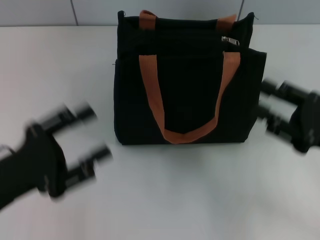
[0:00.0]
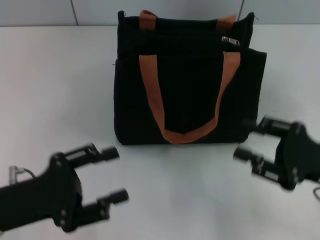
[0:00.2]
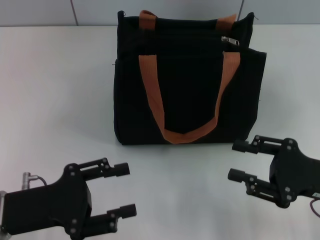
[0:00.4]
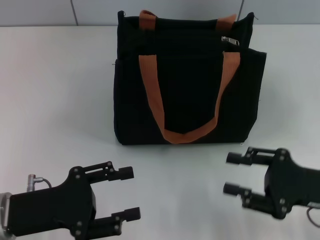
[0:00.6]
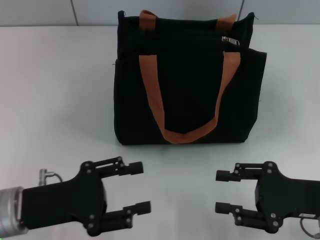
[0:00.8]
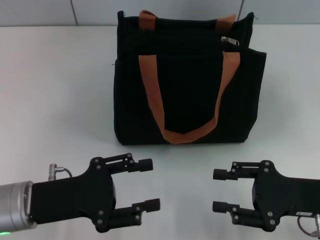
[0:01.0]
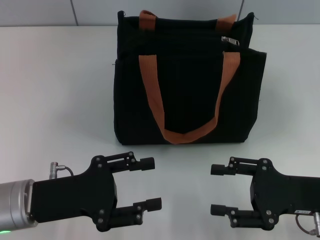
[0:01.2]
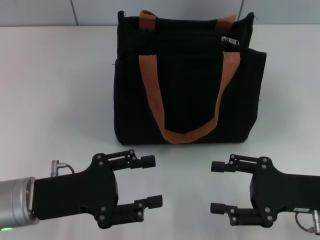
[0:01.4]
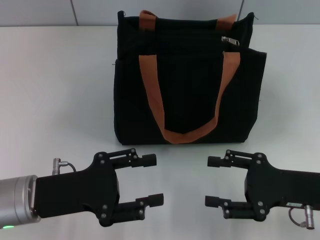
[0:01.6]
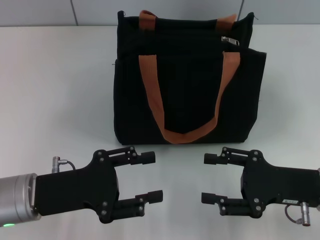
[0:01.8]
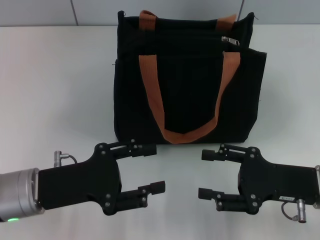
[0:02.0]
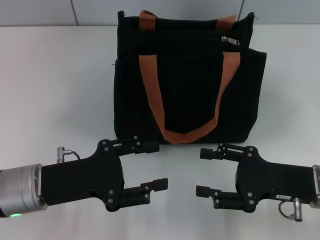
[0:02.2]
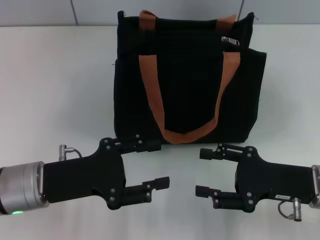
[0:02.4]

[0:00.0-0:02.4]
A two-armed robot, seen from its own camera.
1.2 to 2.4 s: The grippers move only a little.

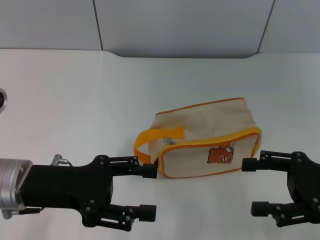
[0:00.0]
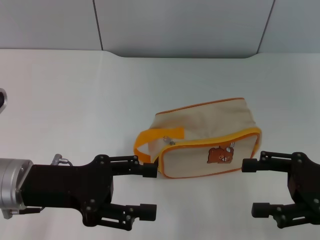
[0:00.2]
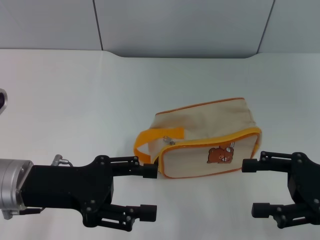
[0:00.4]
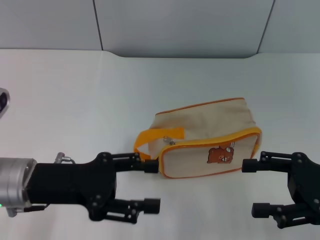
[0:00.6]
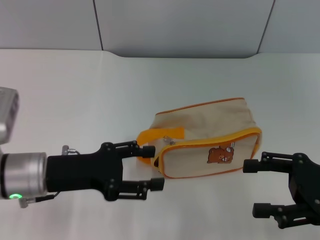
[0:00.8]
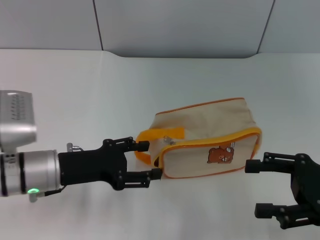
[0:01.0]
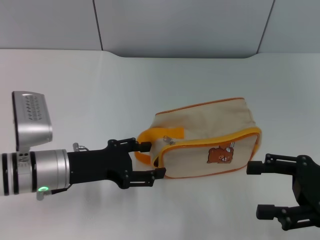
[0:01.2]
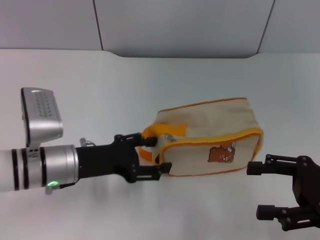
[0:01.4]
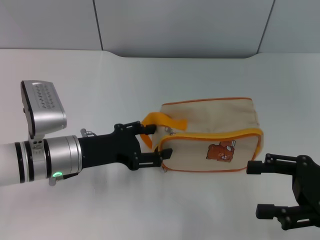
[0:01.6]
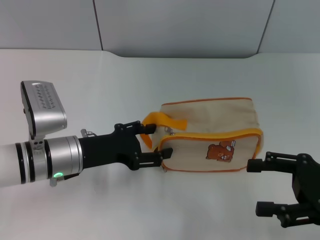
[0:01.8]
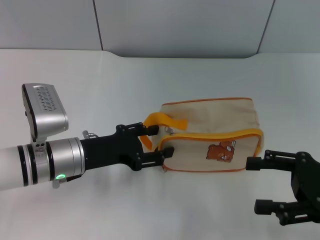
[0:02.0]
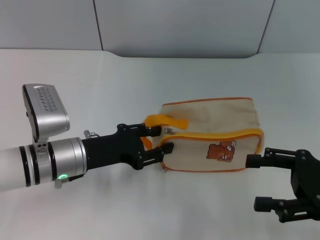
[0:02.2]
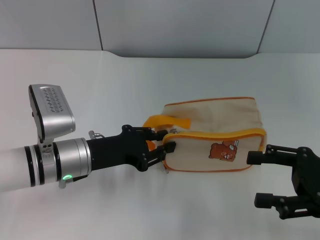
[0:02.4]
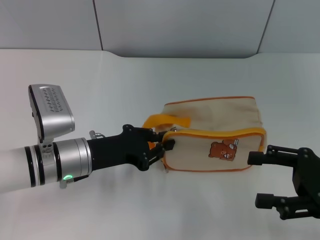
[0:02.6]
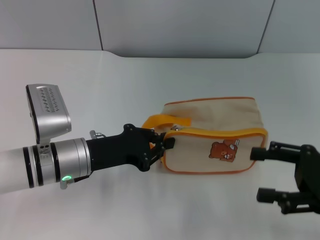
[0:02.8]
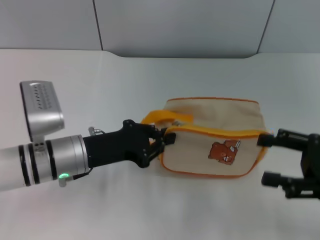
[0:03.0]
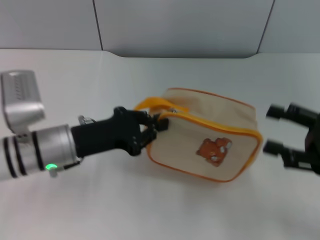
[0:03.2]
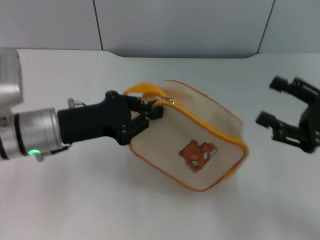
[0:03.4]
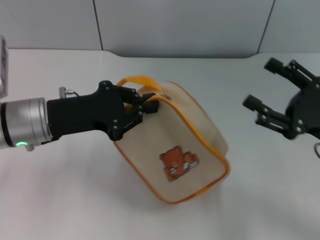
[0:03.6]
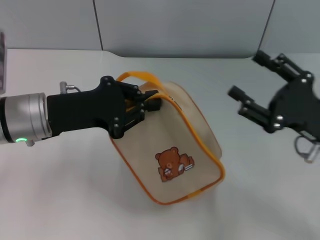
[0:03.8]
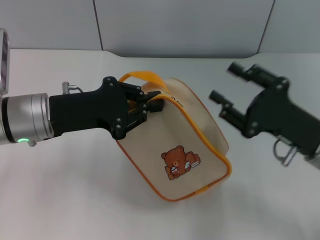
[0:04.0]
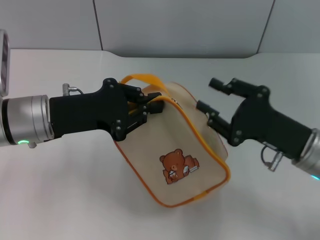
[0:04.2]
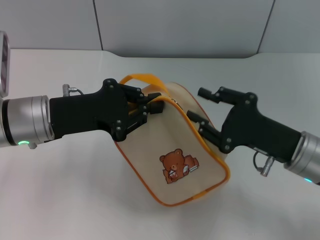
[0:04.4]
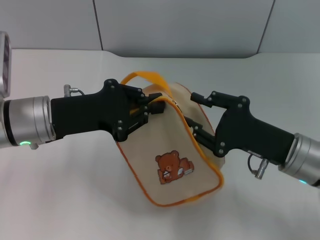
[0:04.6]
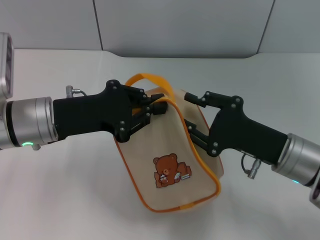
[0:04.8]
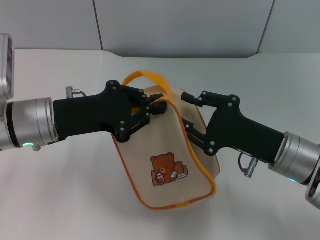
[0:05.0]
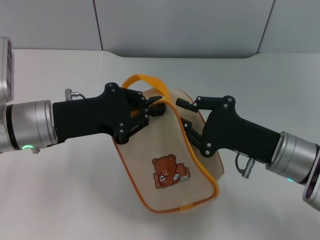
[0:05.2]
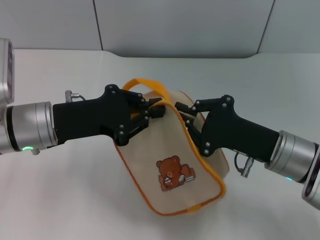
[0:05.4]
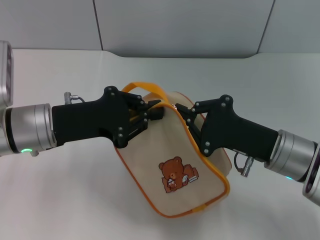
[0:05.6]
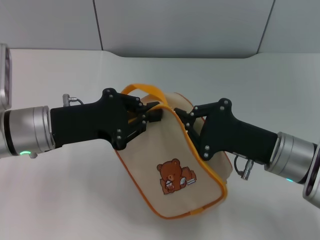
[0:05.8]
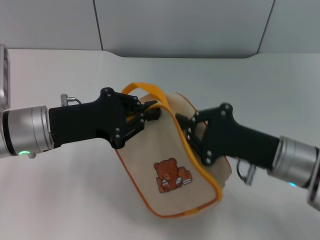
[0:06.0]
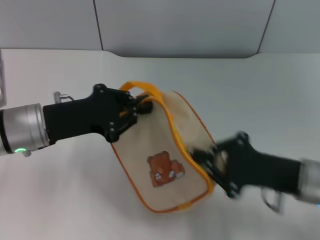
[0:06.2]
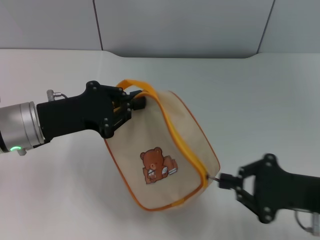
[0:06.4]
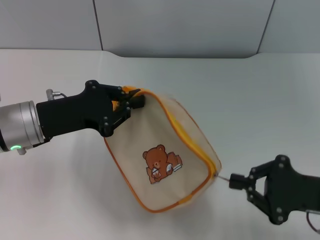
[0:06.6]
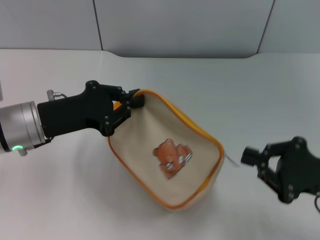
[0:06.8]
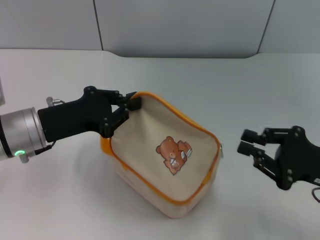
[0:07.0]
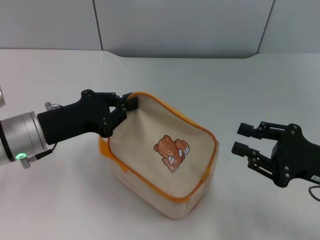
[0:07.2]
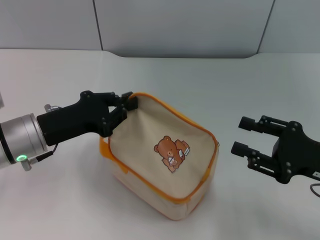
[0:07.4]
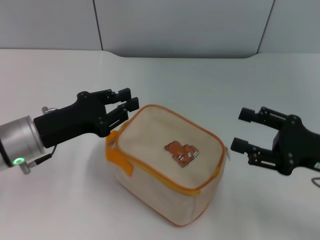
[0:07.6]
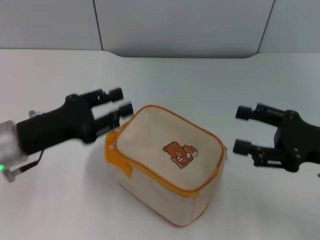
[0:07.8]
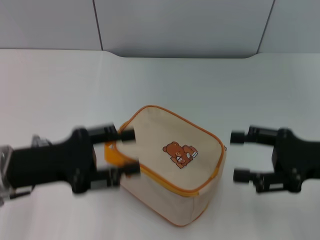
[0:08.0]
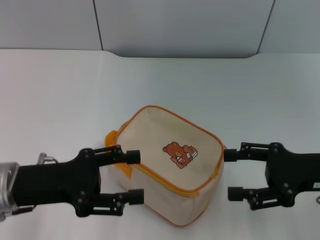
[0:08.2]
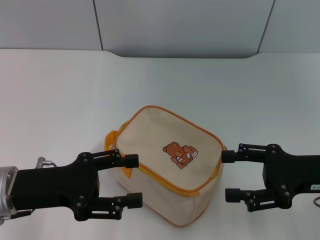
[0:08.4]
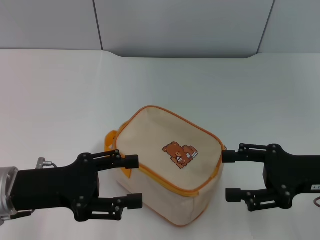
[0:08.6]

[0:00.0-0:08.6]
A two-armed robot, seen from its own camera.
Step, 0.0 to 3.6 s: Pick up the bag with left gripper.
Step, 4.0 to 6.8 s: Unzip the zipper of bag with right gripper.
Step, 7.2 to 7.8 s: Place the bag on the table with left gripper.
0.0 to 1.4 s: The left gripper heads downward, covering about 5 cm.
1.4 to 2.8 s: The left gripper closes its fingers.
2.8 to 4.4 s: The left gripper shifts roughly 10 cm upward. Meanwhile the right gripper goes approximately 10 cm to the left, and closes up.
4.4 to 5.8 s: The right gripper closes its fingers.
5.8 to 7.2 s: The right gripper goes approximately 10 cm to the right.
7.2 to 8.6 s: The left gripper goes some 5 cm backward, and opens. The right gripper opens its fingers.

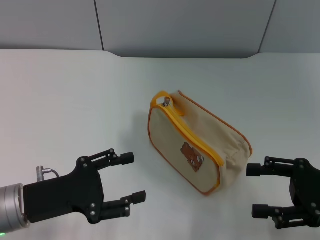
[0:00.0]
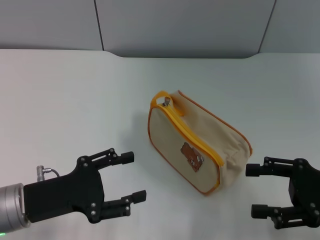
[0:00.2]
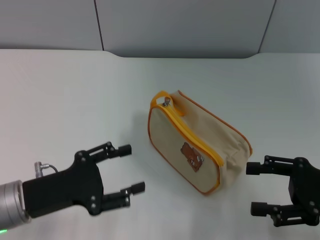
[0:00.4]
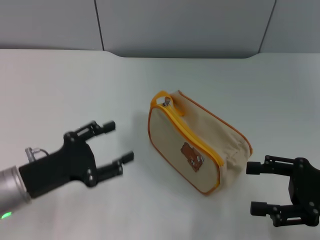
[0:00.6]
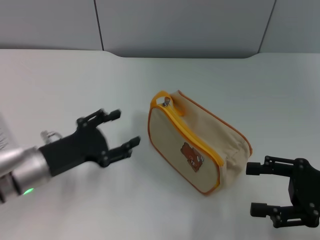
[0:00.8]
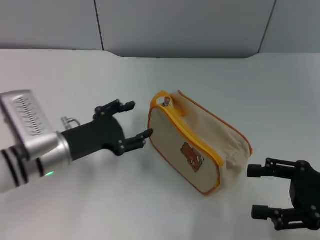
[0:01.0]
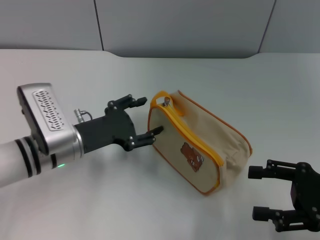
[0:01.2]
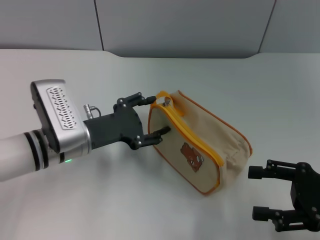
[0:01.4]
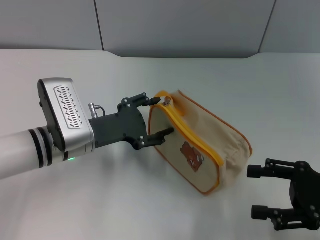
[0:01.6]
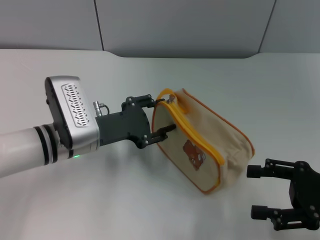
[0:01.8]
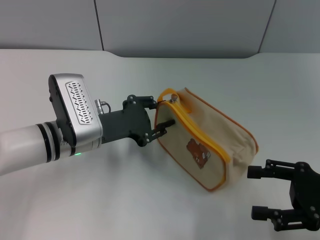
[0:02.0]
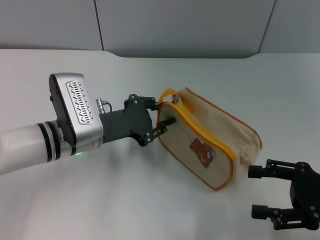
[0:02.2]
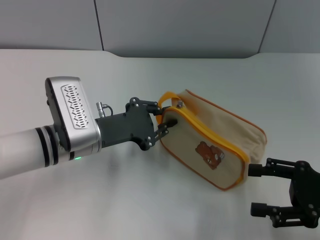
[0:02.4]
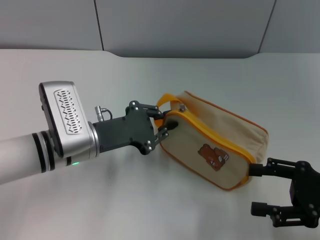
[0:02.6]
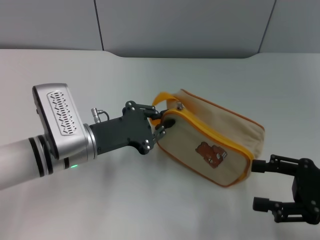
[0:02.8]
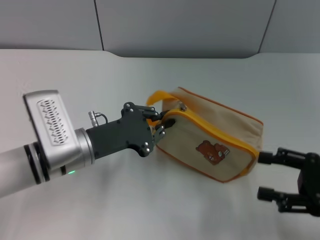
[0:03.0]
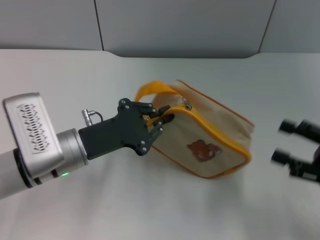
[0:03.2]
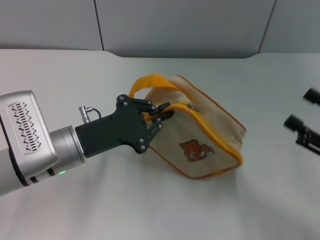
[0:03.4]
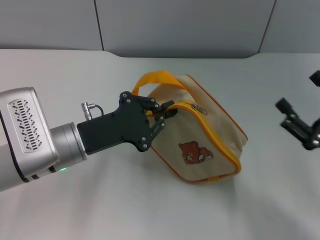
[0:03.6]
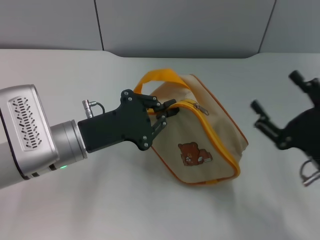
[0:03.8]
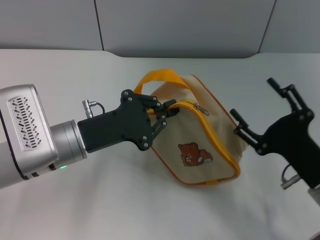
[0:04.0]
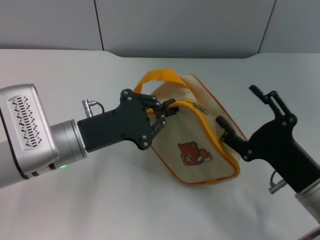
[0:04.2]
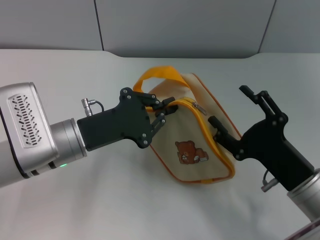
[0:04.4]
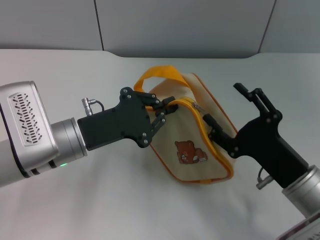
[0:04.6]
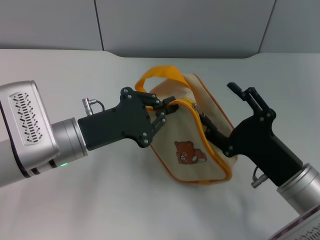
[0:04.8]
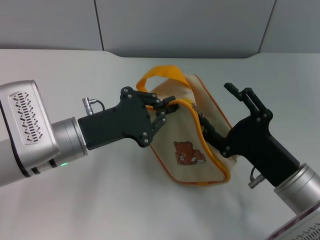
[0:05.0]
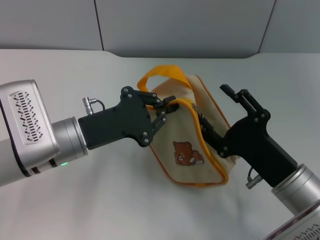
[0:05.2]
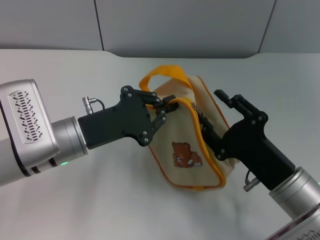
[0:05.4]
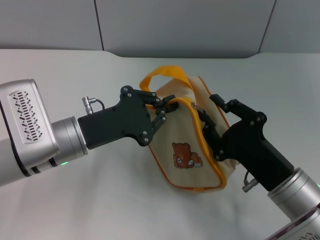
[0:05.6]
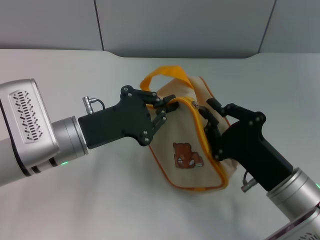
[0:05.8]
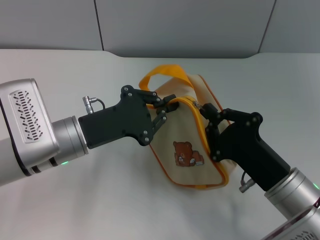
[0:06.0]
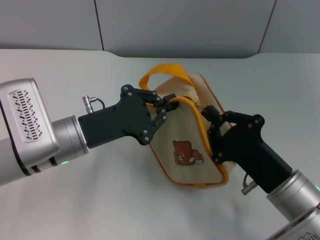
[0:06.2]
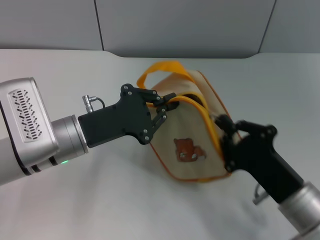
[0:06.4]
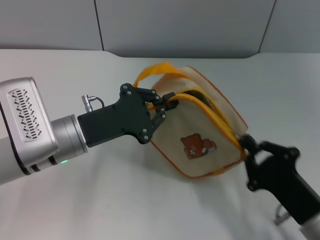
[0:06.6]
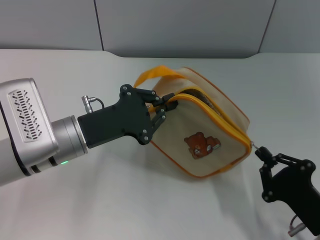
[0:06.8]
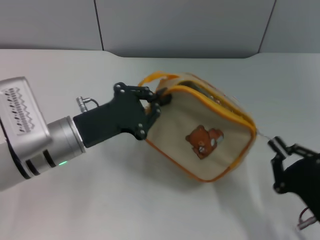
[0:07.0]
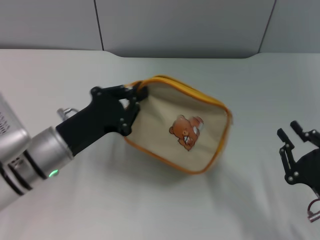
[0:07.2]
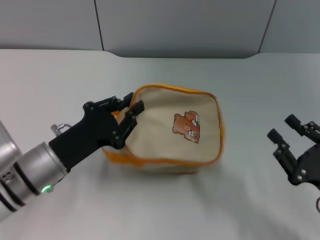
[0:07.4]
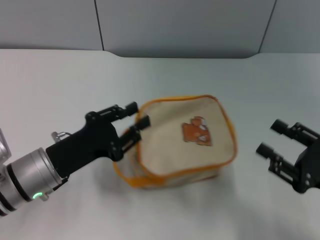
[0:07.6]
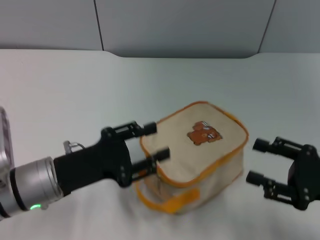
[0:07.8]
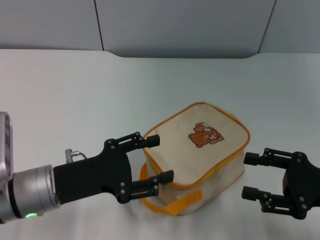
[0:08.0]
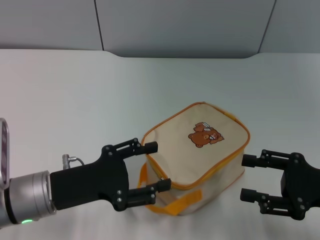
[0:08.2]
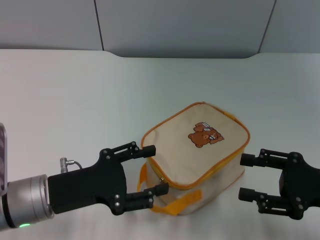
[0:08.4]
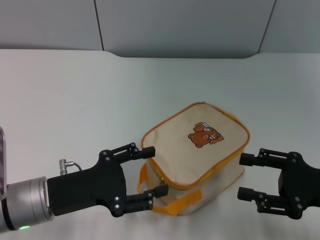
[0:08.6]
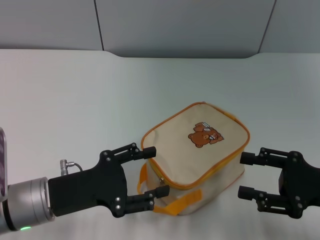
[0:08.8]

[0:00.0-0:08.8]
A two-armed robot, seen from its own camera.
Step, 0.0 to 3.2 s: Pick up the bag with left gripper.
Step, 3.4 to 7.0 s: Unzip the zipper of bag with right gripper.
Step, 7.2 to 7.6 s: Place the bag on the table with left gripper.
0.0 to 1.4 s: The left gripper is displaced forward and to the right by some 10 cm.
1.4 to 3.0 s: The left gripper closes up.
3.0 to 4.4 s: The right gripper heads to the left, covering some 10 cm.
4.4 to 5.8 s: The right gripper closes.
5.8 to 7.4 s: The right gripper travels to the right by about 10 cm. The left gripper changes place by some 5 cm.
7.4 to 8.8 s: The left gripper opens. The right gripper changes place by about 5 cm, and opens its fingers.

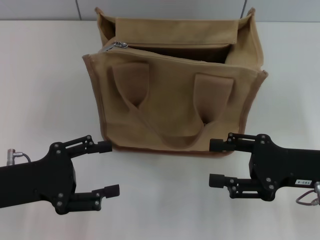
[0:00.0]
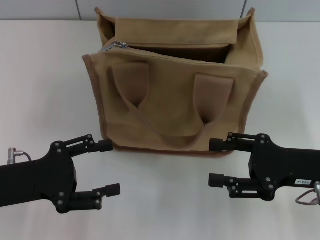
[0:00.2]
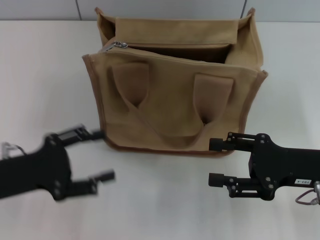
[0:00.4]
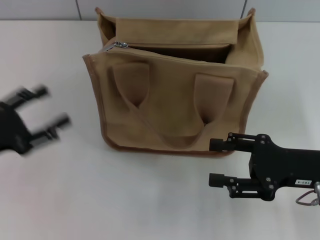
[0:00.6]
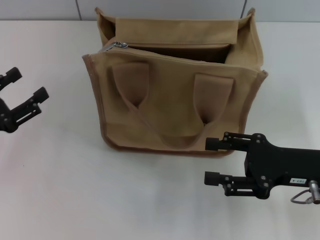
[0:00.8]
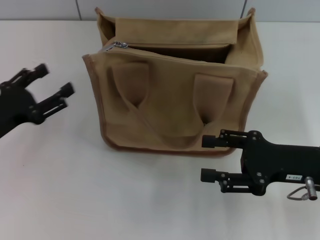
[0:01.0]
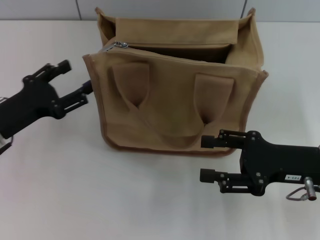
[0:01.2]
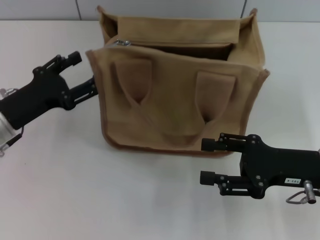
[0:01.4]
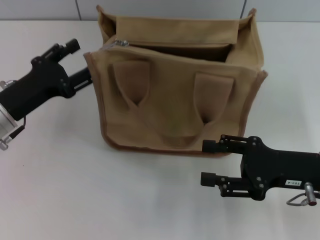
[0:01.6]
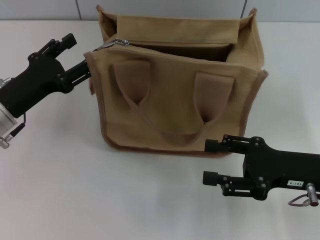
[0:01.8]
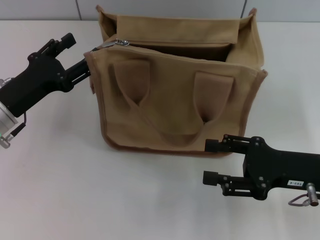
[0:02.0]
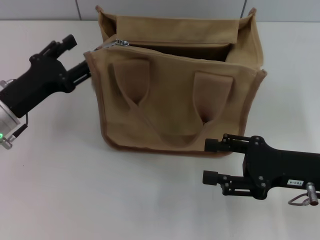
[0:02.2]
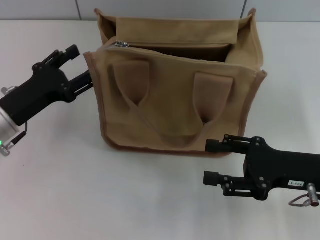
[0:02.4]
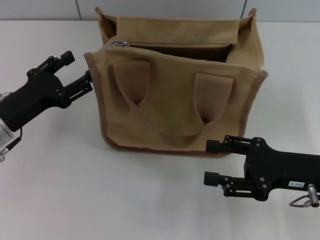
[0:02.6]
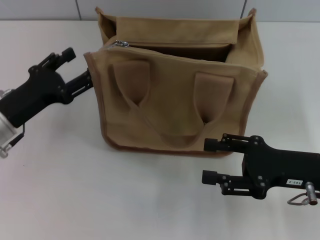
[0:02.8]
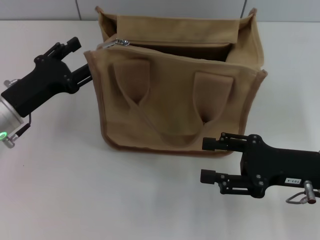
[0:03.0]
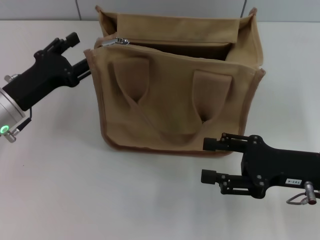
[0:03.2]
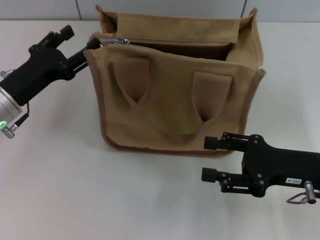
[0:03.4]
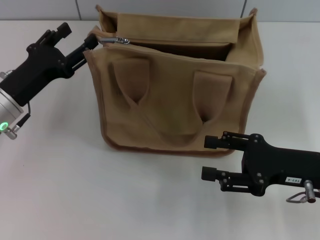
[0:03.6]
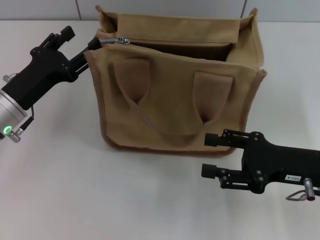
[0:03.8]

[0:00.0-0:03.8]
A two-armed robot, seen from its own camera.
0.0 to 1.2 s: The left gripper shifts about 5 cm forward.
1.2 to 3.8 s: The grippers move only a little.
